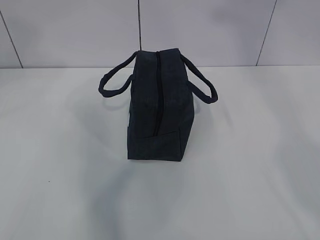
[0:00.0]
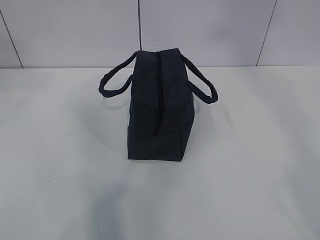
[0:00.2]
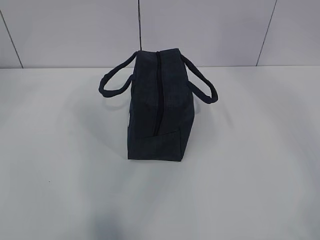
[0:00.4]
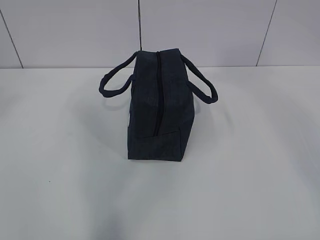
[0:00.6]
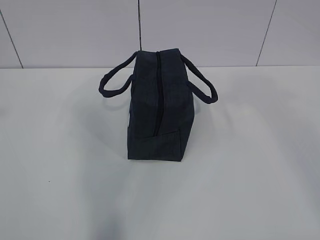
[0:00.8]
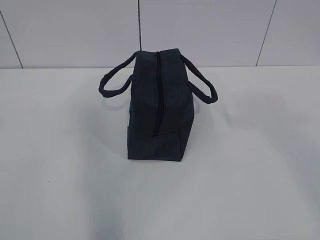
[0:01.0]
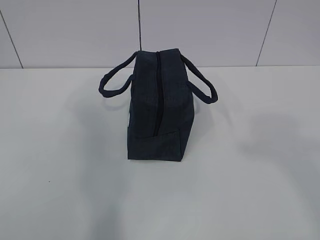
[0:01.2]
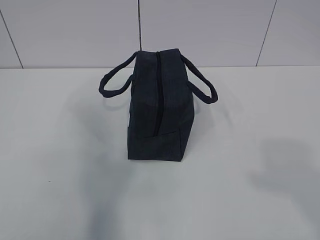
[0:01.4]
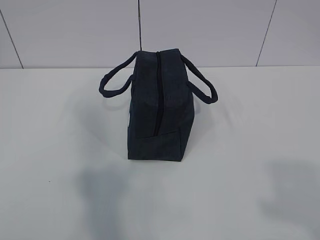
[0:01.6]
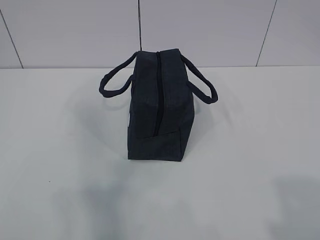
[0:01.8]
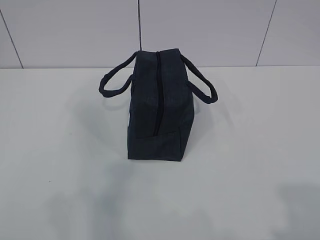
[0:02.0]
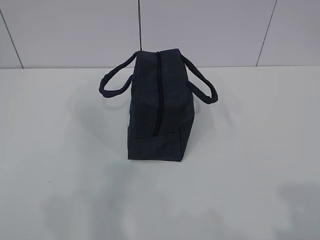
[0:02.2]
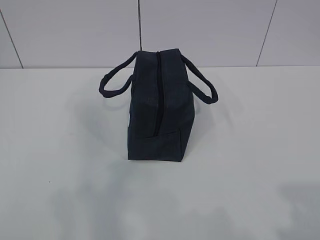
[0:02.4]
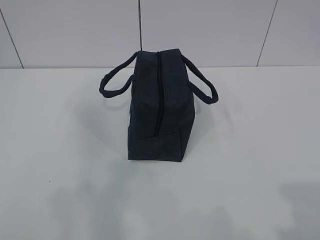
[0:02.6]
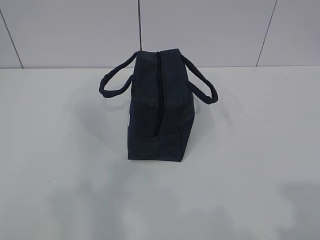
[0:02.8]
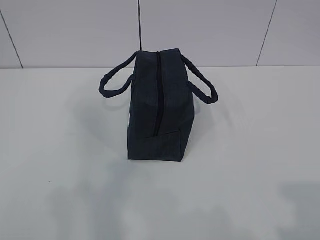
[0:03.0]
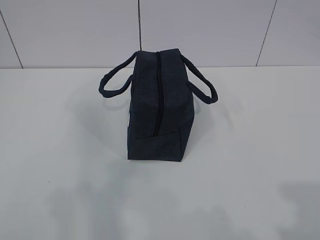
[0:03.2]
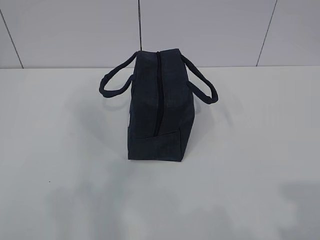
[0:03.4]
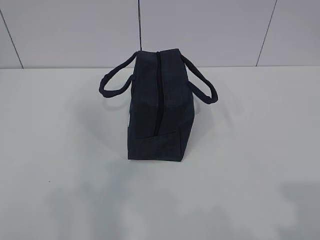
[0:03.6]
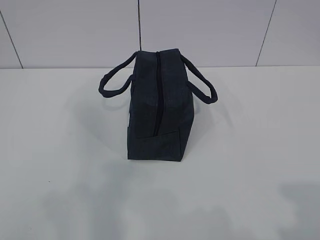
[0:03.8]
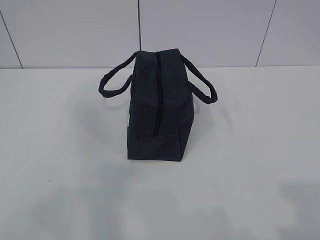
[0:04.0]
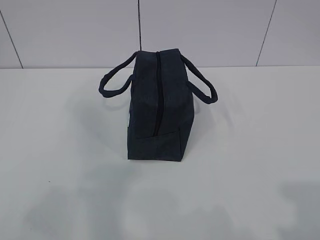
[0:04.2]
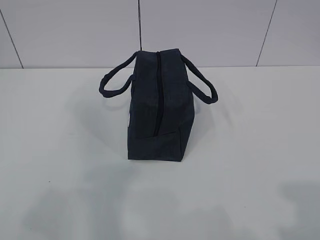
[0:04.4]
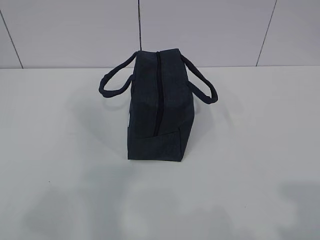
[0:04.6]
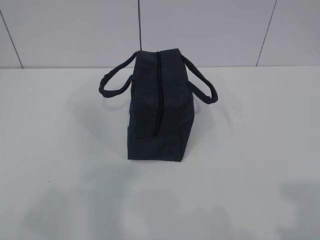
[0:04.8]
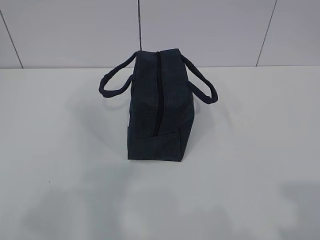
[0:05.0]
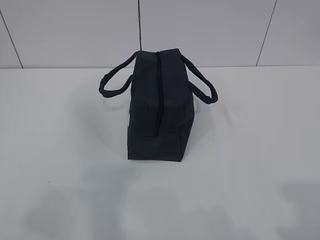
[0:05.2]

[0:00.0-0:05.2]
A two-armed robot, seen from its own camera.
0:00.0 to 0:01.8: The left gripper moves backward, downward and to the left, approximately 35 cm; the right gripper moves downward and backward, about 40 cm.
